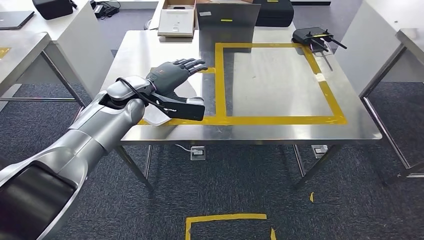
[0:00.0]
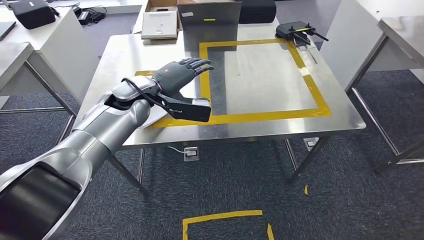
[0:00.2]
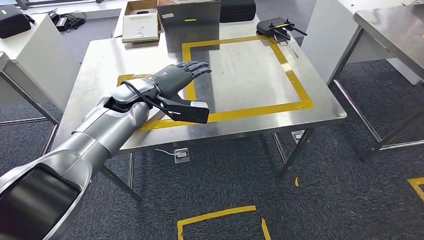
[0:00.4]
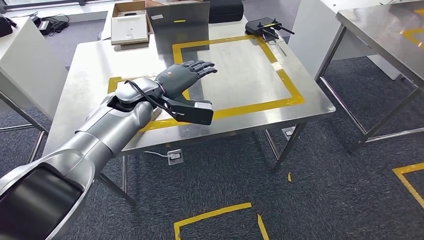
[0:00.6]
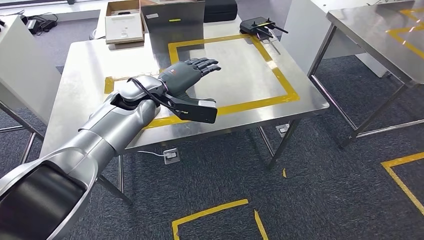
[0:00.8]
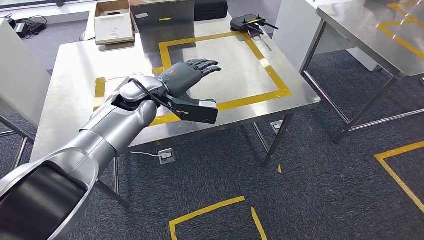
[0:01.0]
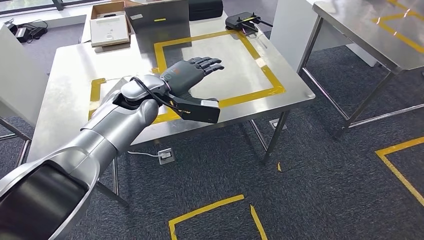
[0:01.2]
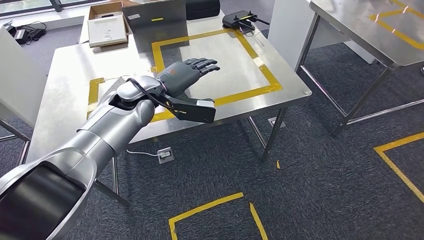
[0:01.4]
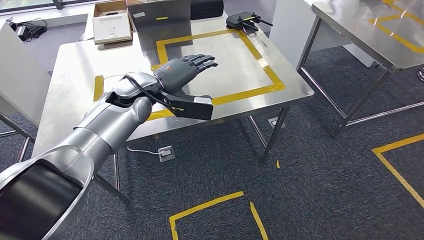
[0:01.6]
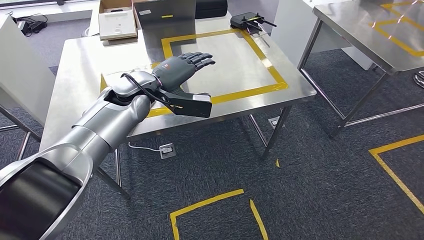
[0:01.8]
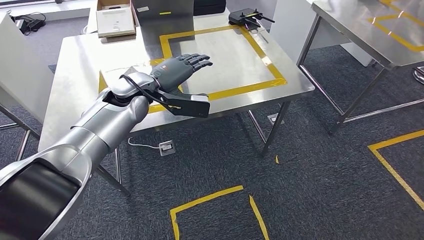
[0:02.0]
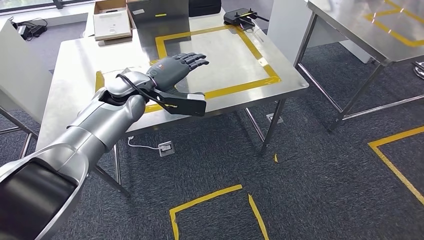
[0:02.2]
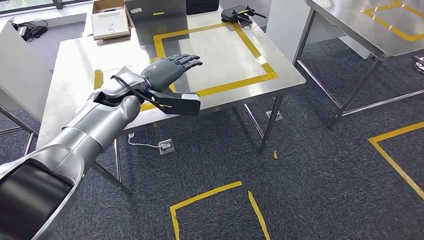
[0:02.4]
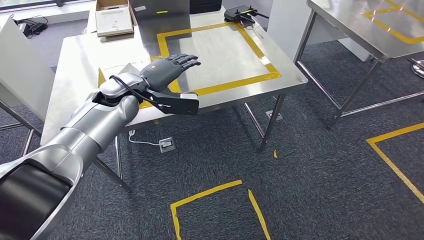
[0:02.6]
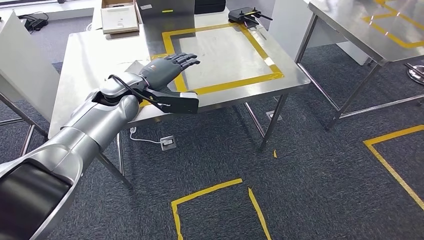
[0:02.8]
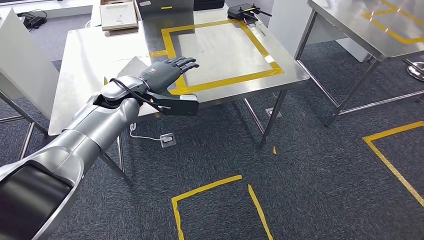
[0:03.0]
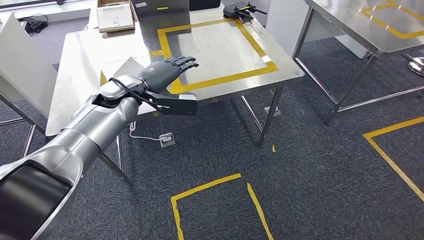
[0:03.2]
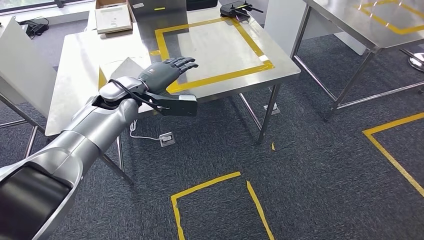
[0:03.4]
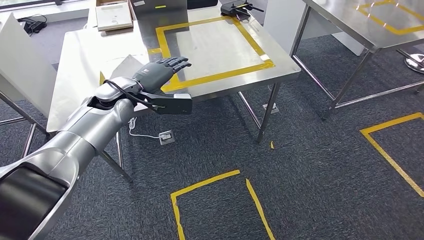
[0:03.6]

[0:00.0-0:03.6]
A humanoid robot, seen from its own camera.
Step, 0:00.0 to 0:03.6: Return to the initial position at the workbench.

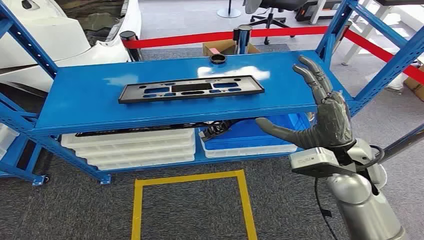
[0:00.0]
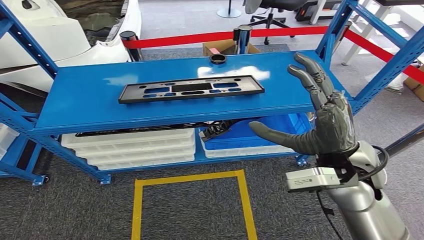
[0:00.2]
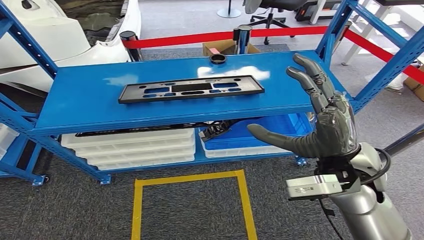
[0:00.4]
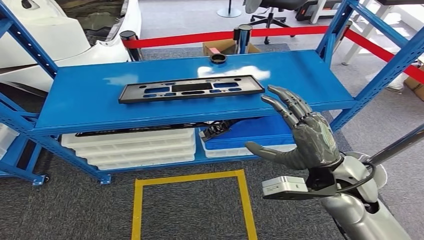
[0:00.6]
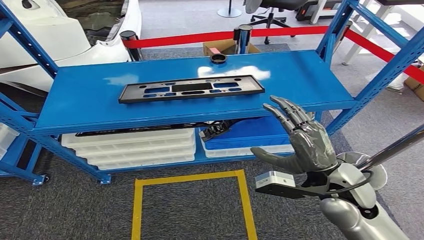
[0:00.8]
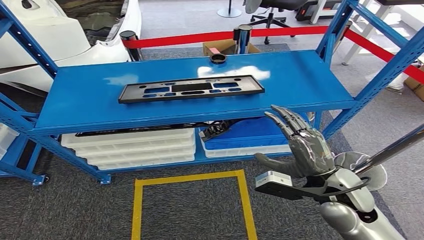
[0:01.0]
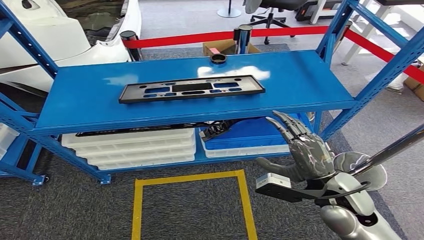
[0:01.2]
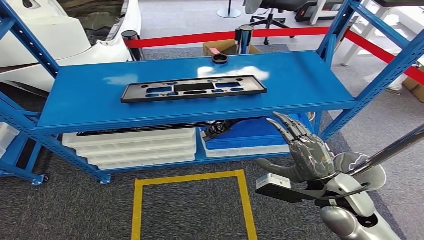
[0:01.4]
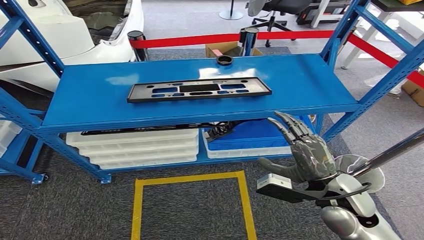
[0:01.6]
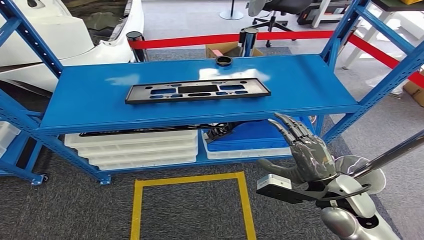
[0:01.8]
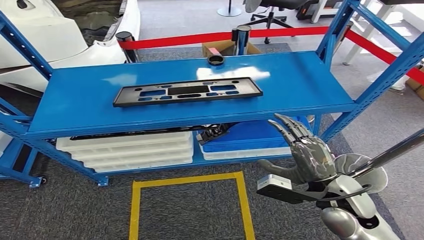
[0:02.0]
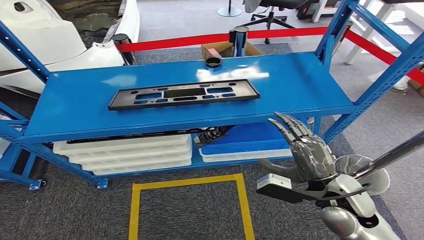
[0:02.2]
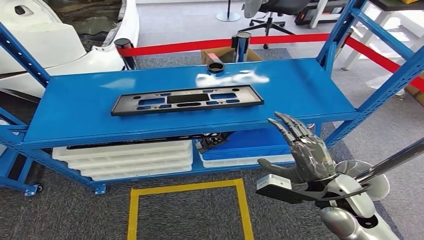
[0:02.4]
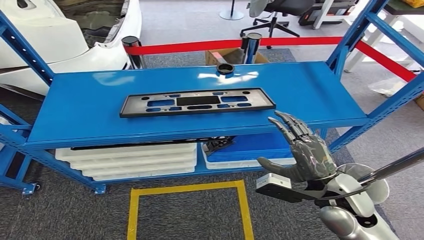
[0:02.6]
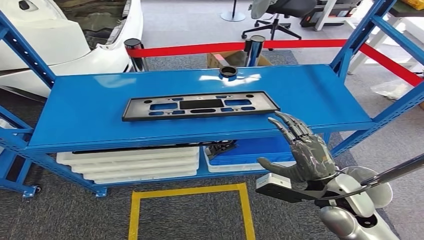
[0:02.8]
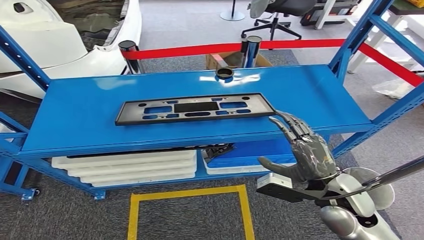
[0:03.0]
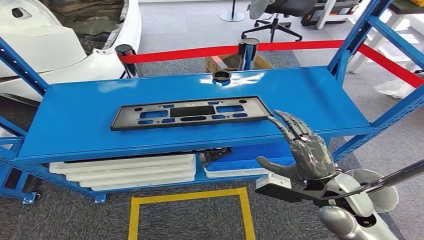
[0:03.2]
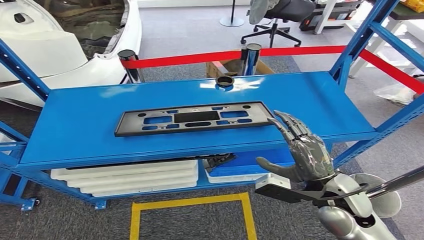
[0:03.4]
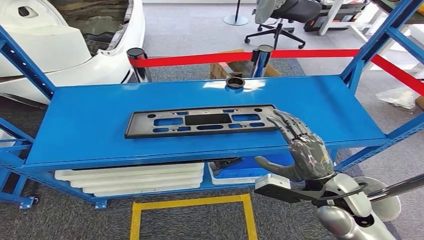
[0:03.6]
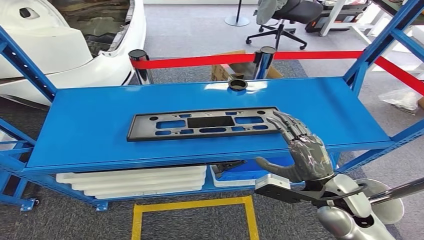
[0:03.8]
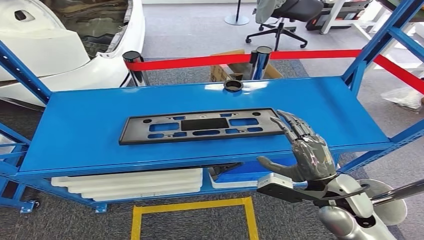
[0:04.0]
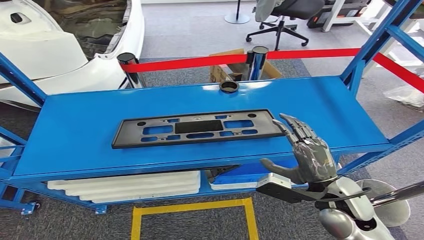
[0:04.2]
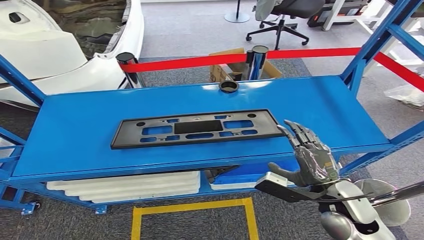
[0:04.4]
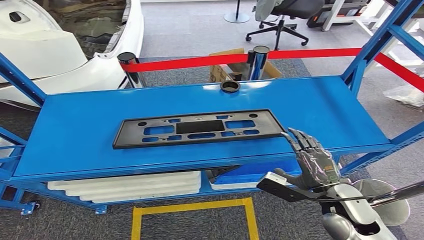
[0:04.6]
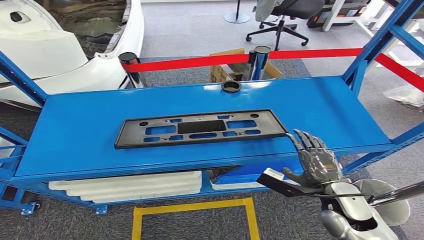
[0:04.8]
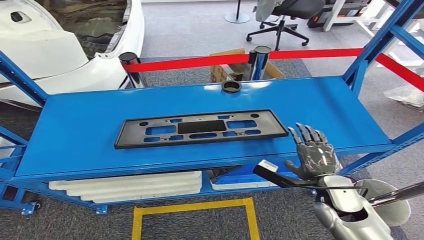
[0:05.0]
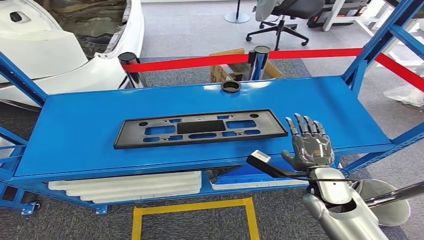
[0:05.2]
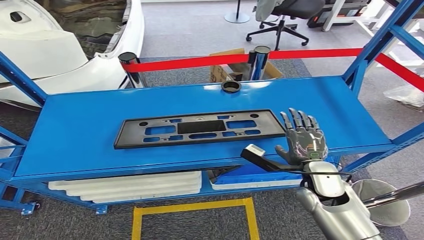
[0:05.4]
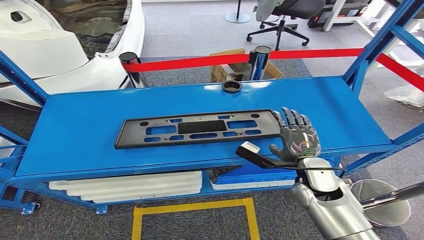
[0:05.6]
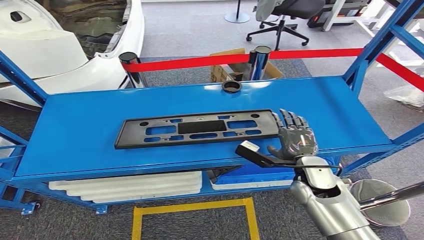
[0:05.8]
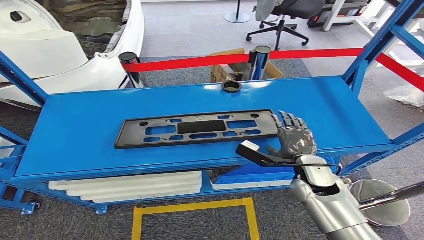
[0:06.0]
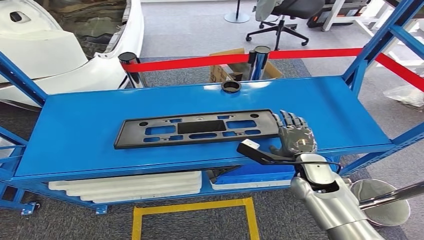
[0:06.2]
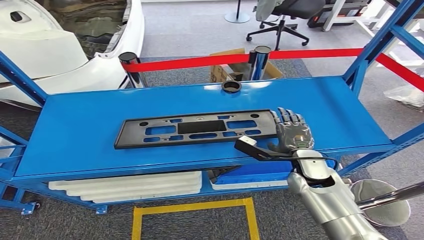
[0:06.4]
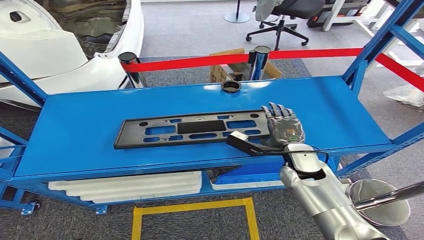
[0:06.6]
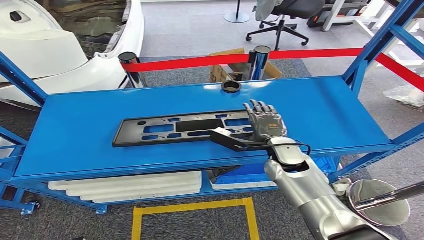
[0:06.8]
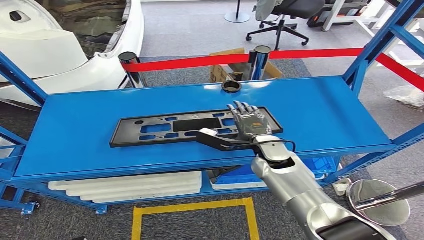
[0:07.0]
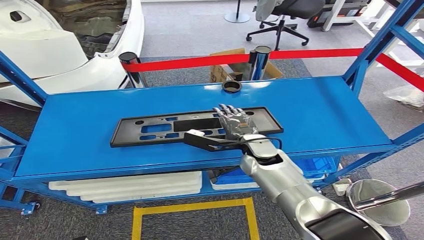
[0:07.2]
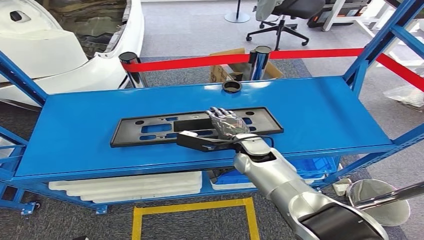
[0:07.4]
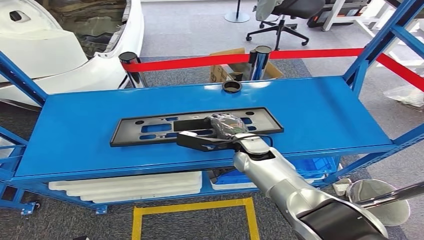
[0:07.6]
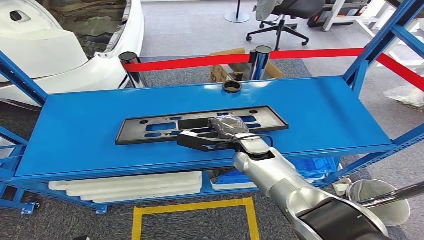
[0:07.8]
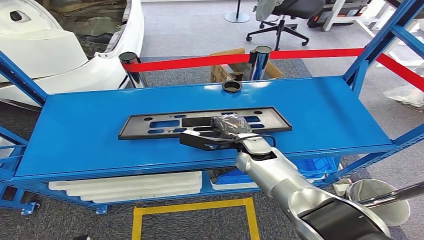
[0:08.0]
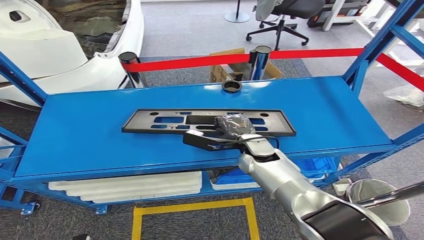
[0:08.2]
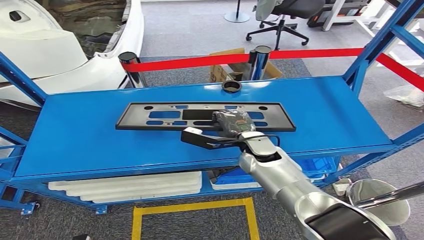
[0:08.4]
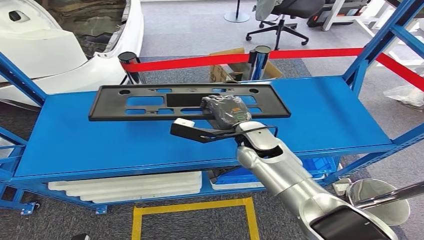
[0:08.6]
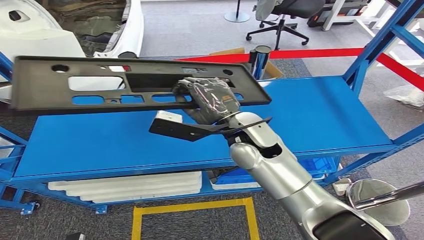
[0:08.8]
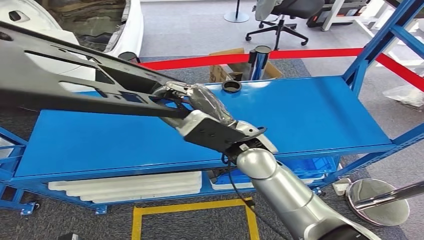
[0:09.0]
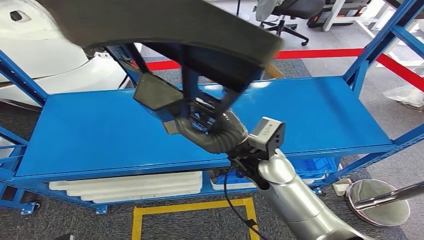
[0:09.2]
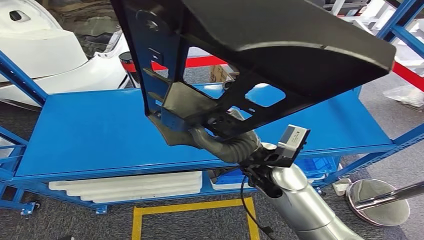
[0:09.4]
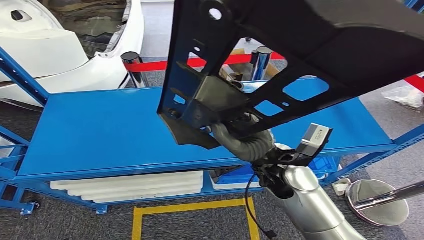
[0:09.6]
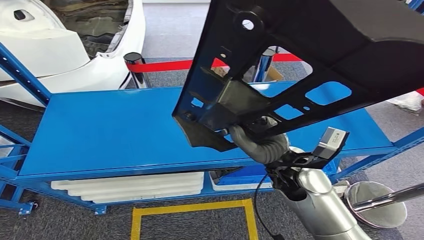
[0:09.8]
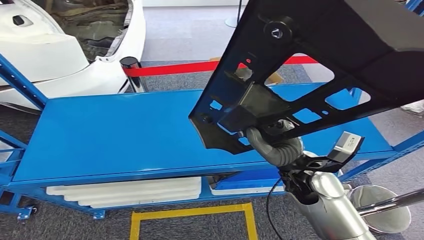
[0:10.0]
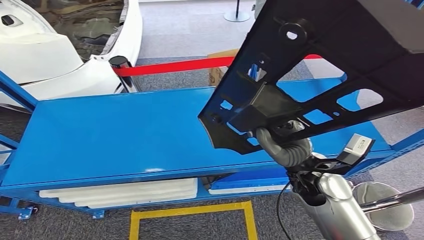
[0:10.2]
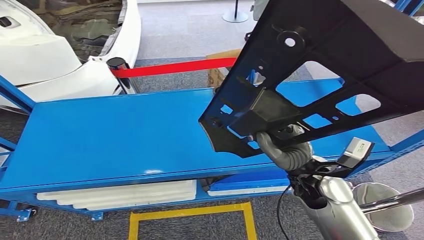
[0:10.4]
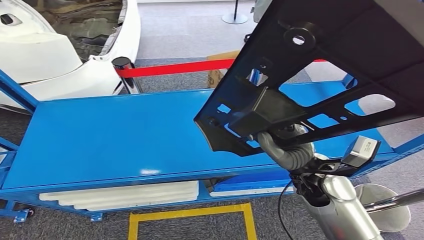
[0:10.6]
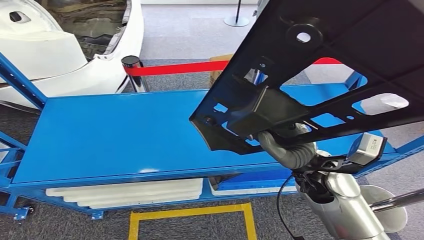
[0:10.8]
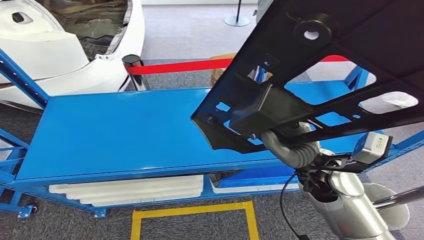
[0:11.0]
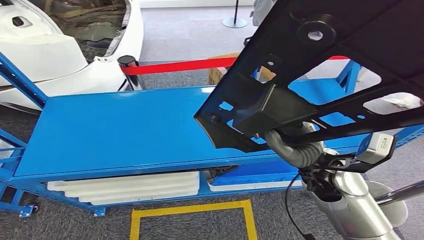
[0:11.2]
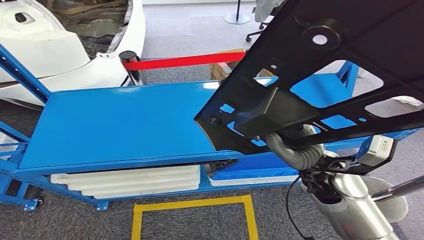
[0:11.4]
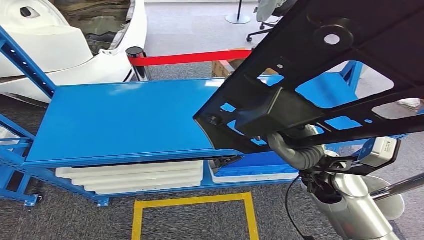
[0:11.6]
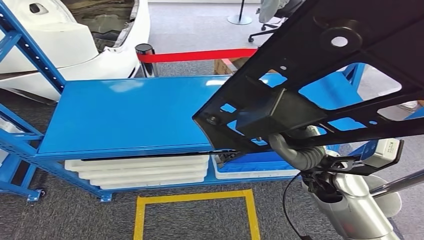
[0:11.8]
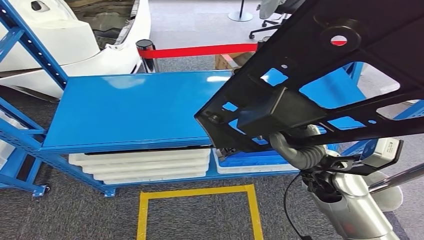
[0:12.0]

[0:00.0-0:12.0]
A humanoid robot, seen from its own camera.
Step, 0:00.0 to 0:09.4: Pick up the small parts from the shelf.
0:04.4 to 0:06.0: The right hand travels forward by approximately 10 cm.
0:06.0 to 0:07.6: The right hand is displaced to the left and forward by some 15 cm.

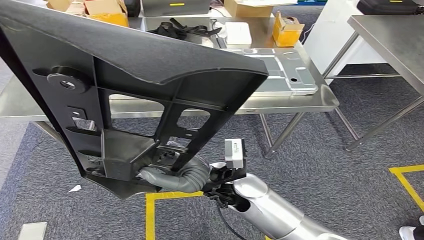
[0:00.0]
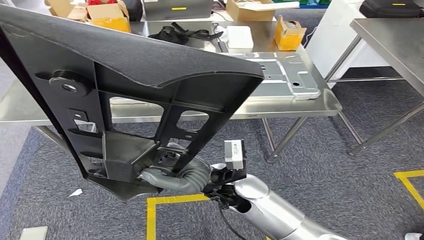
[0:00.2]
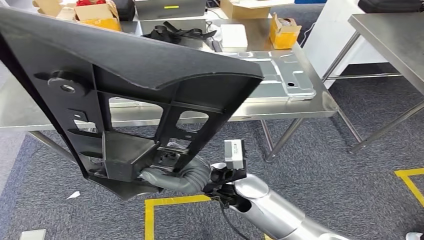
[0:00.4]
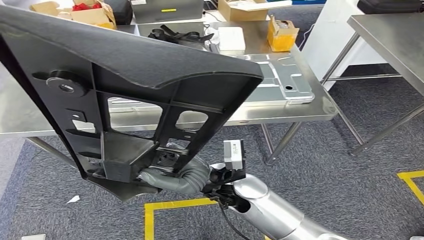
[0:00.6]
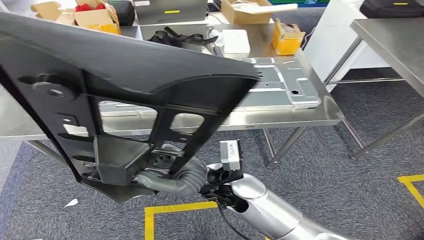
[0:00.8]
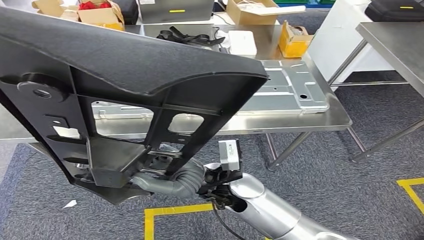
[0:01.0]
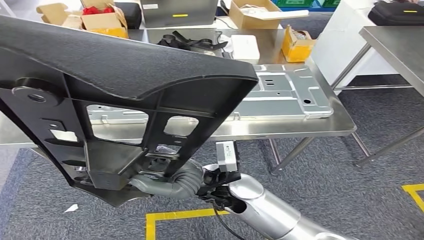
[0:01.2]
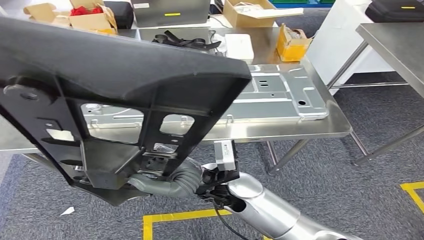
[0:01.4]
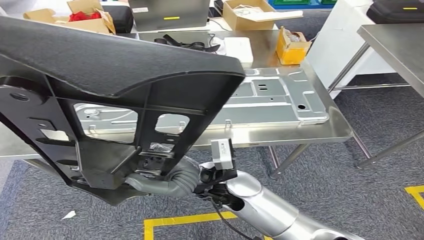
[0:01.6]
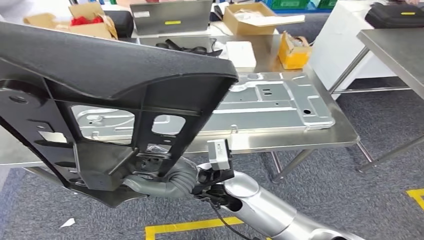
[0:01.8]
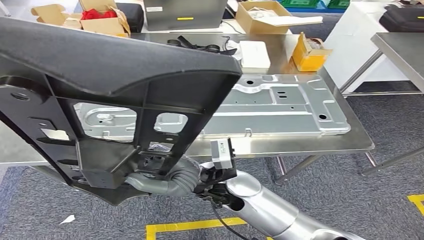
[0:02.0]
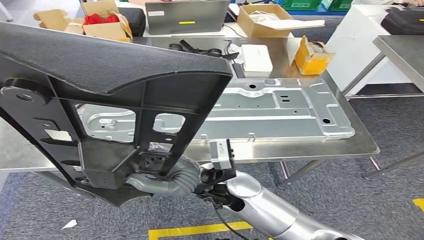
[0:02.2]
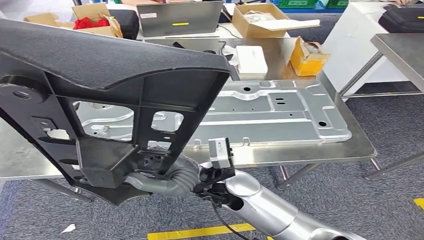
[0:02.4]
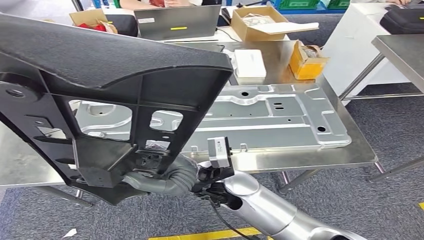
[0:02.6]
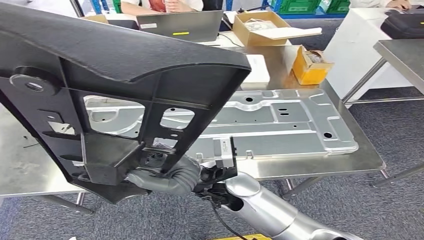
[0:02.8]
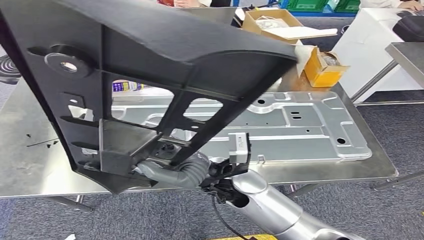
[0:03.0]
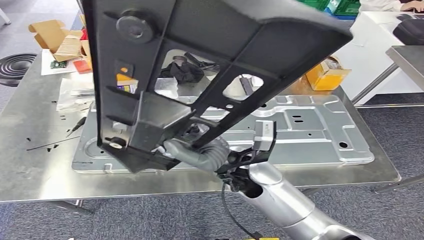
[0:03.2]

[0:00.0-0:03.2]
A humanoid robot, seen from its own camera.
Step, 0:00.0 to 0:02.6: Move the small parts to the workbench.
